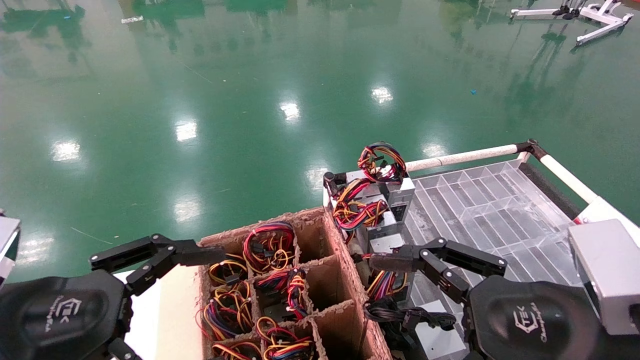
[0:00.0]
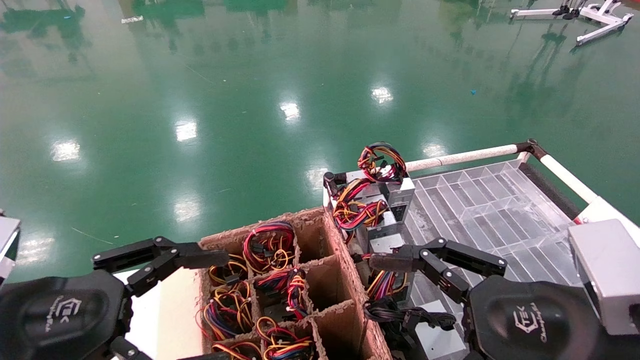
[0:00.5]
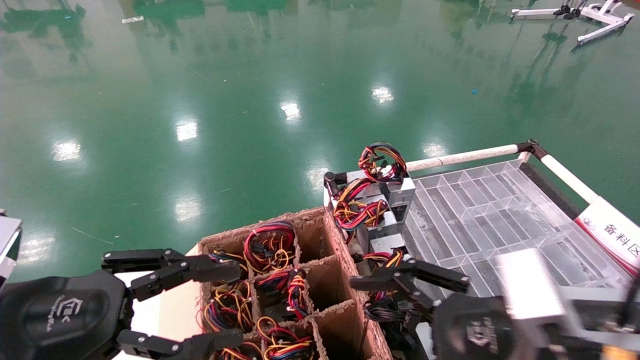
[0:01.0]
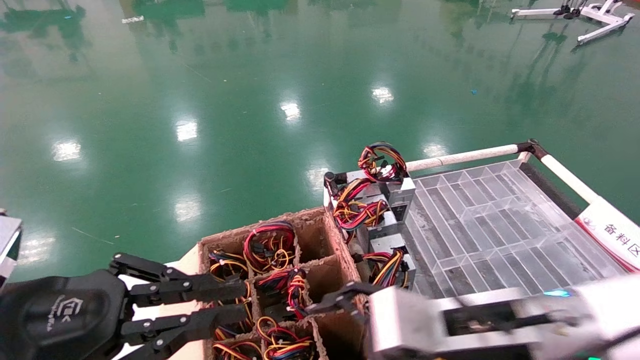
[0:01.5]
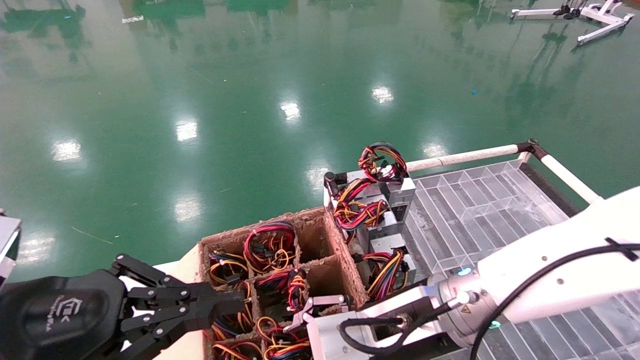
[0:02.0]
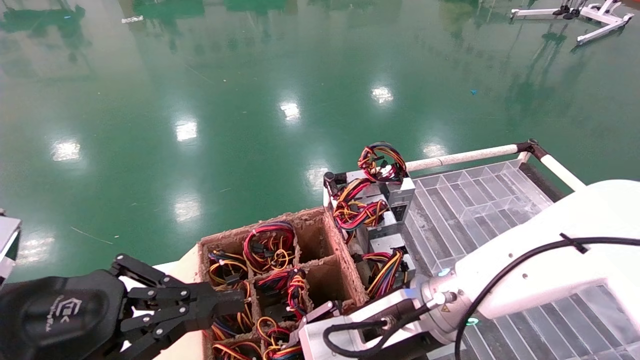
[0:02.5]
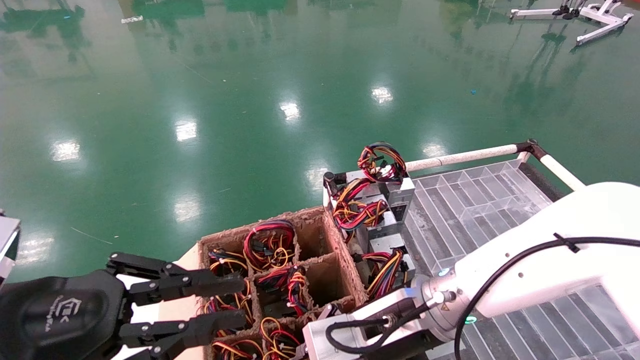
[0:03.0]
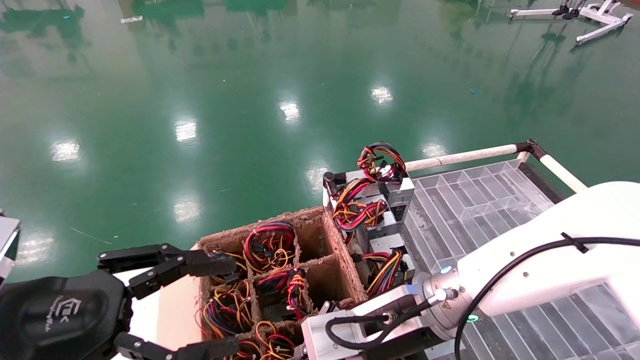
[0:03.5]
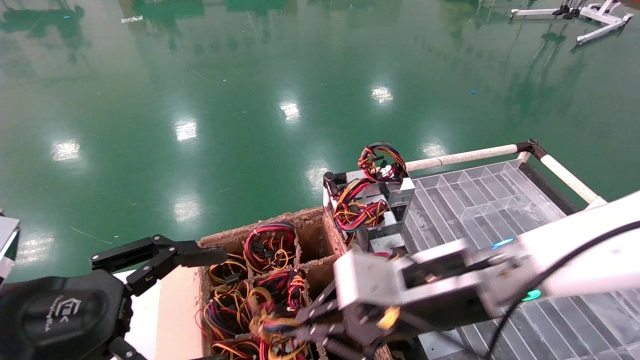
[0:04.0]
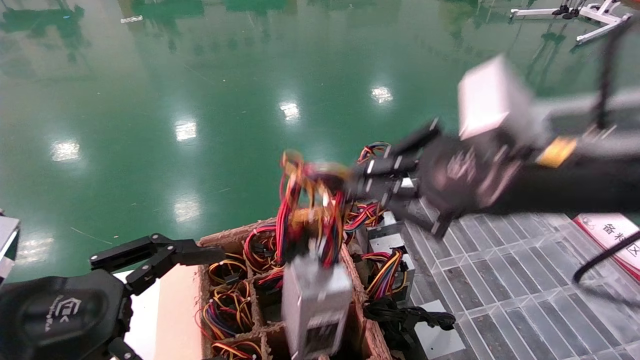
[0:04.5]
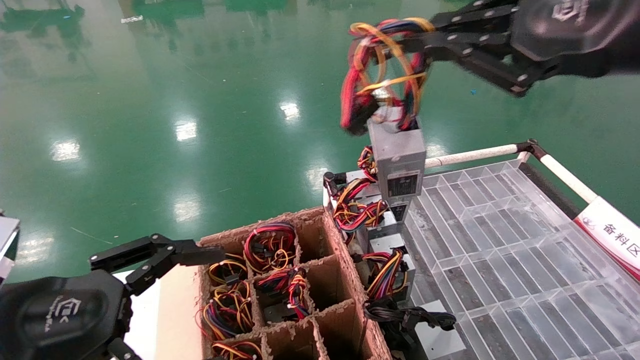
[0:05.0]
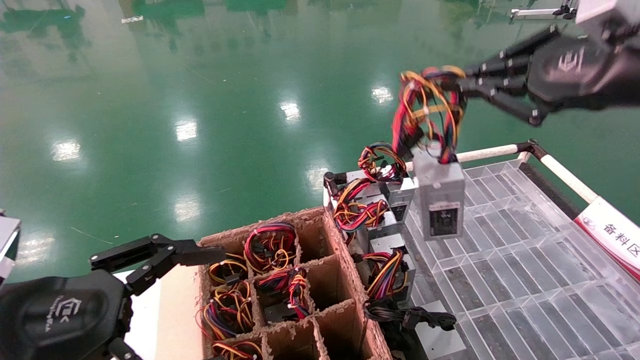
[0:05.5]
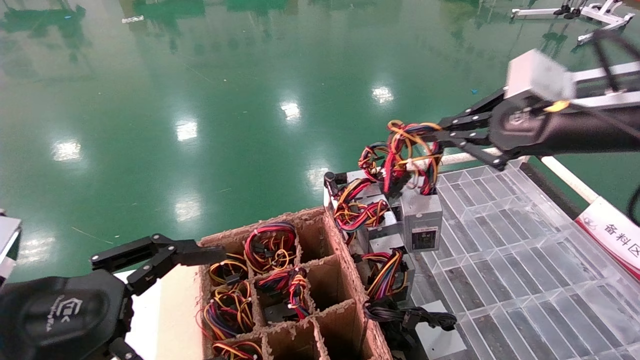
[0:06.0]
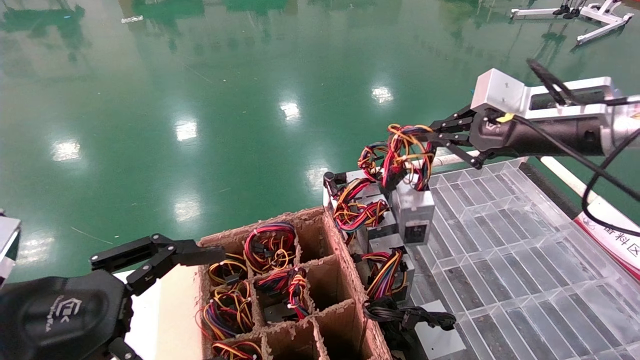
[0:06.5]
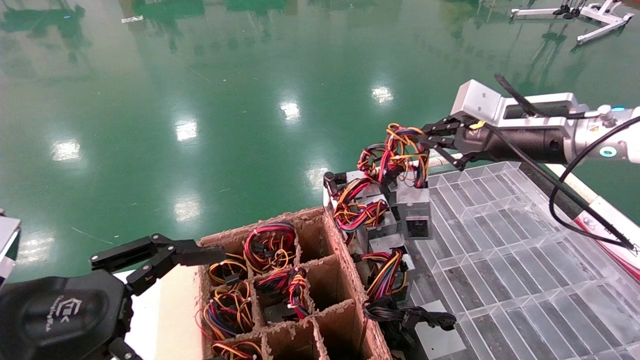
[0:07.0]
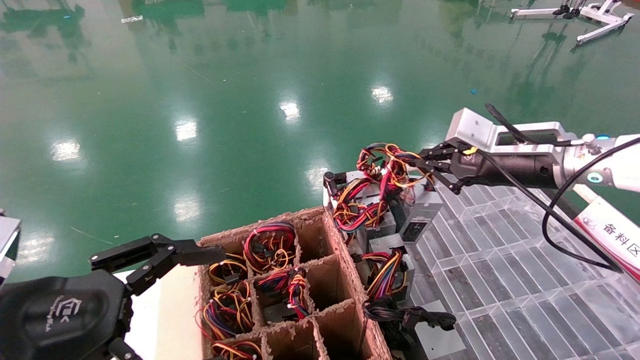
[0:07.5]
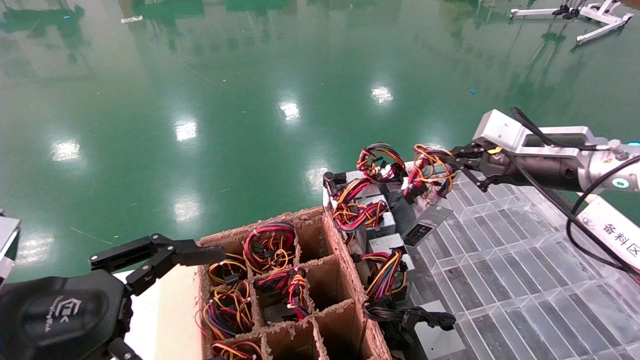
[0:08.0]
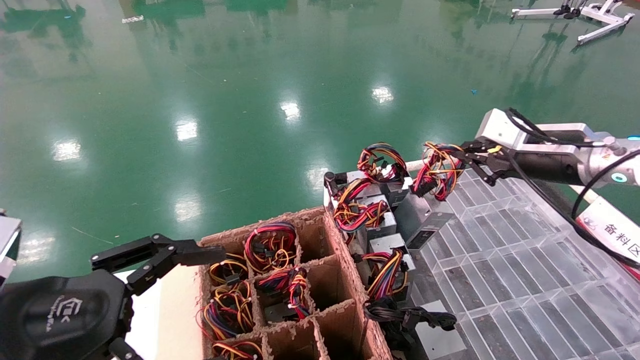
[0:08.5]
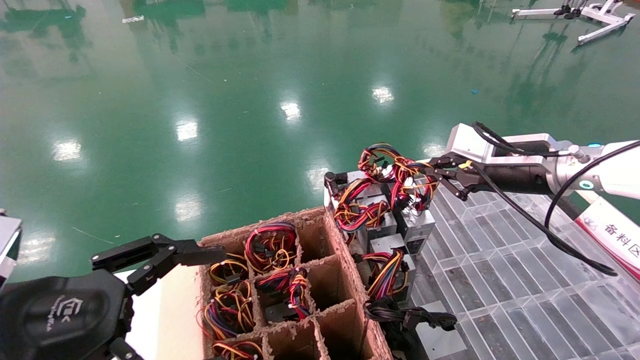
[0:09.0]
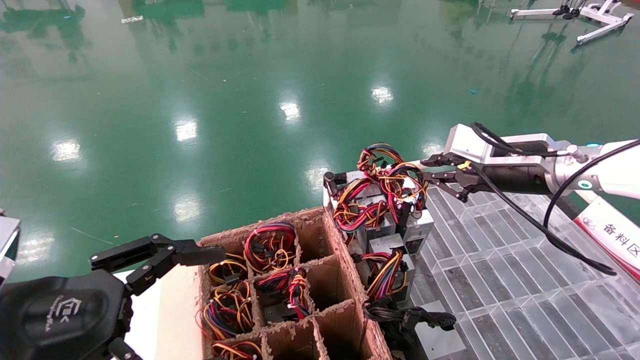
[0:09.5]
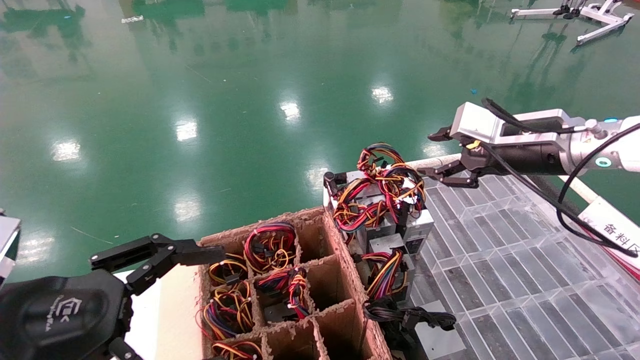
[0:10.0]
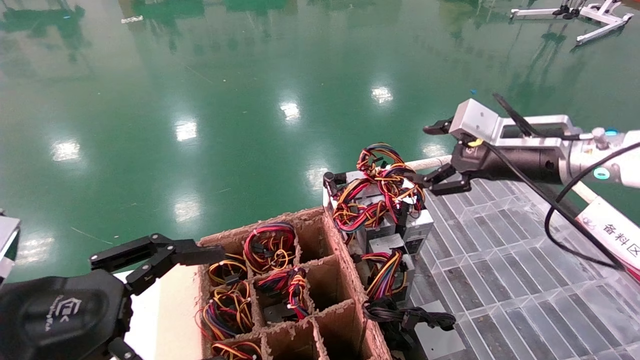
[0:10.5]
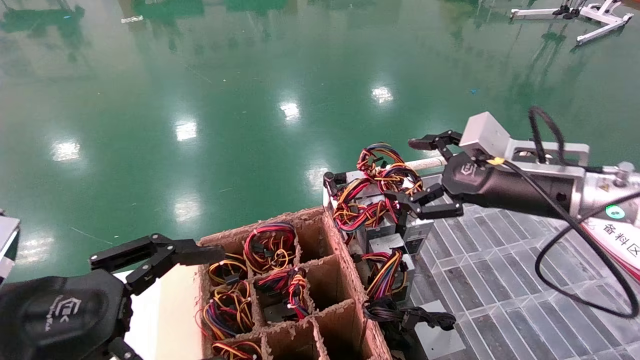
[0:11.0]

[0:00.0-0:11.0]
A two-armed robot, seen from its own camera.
Step, 0:02.0 to 0:03.0: Grab and lift the power supply from the large box.
Step, 0:03.5 to 0:09.5: Place the power supply on the operating table.
0:00.0 to 0:02.0: The left gripper closes its fingers, while the right gripper heads to the left and forward, covering some 15 cm.
0:02.0 to 0:03.5: The right gripper closes, while the left gripper opens up.
0:03.5 to 0:05.5: The left gripper opens, while the right gripper travels upward and to the right by approximately 35 cm.
0:05.5 to 0:07.5: The right gripper heads forward and downward, covering some 15 cm.
0:07.5 to 0:09.0: The grippers move only a little.
0:09.0 to 0:11.0: The right gripper ends up approximately 5 cm from where it was, and opens.

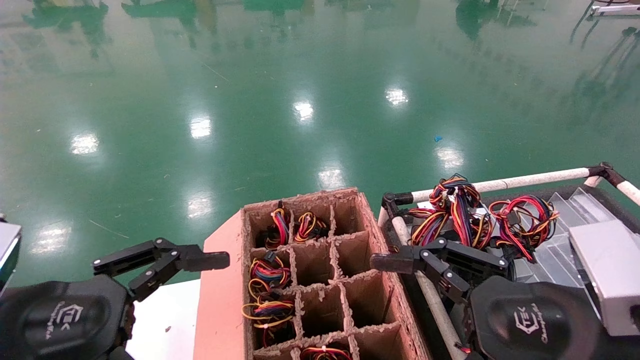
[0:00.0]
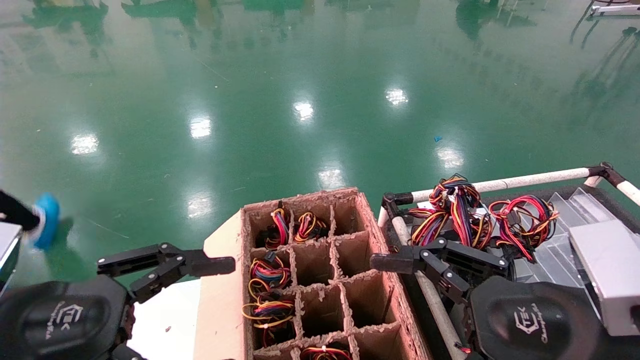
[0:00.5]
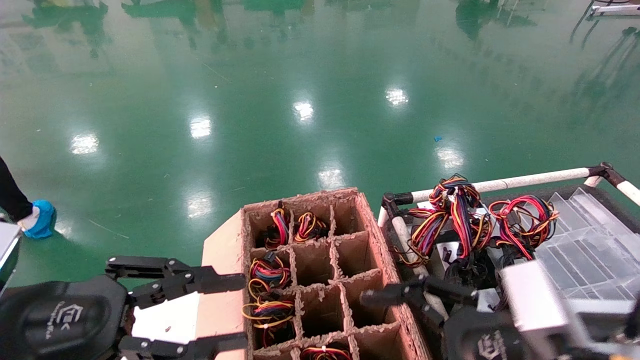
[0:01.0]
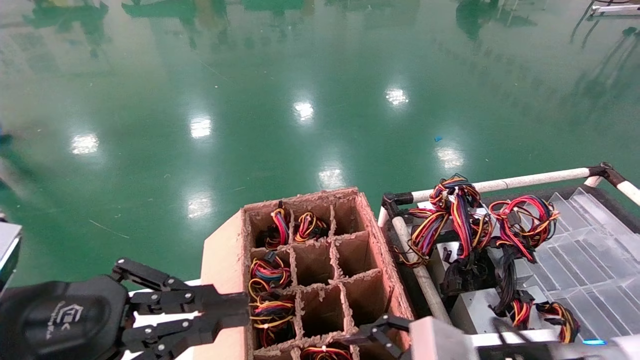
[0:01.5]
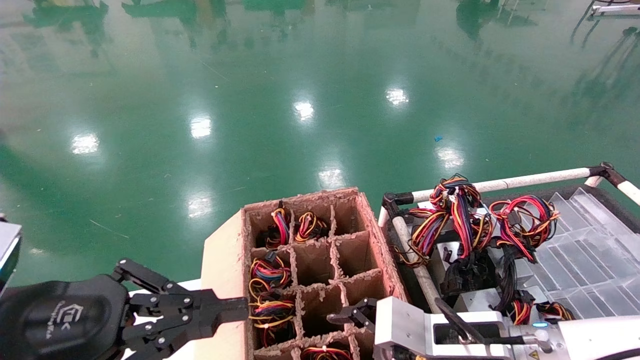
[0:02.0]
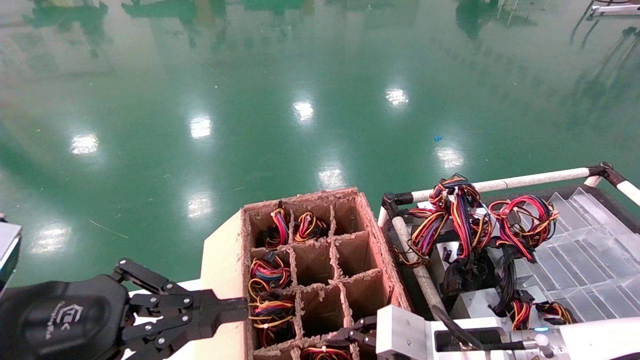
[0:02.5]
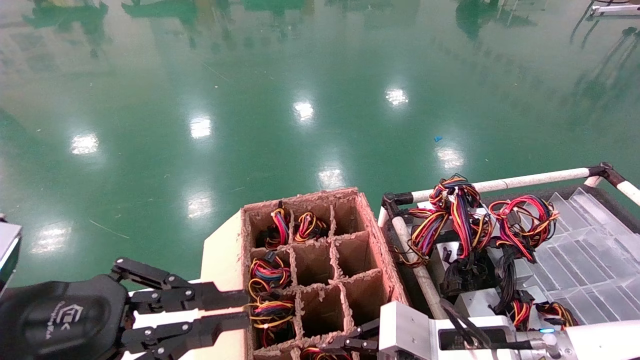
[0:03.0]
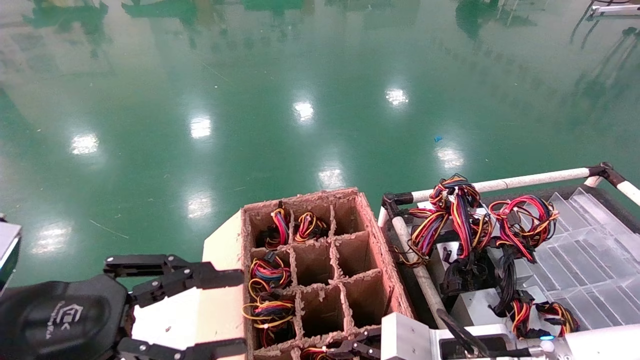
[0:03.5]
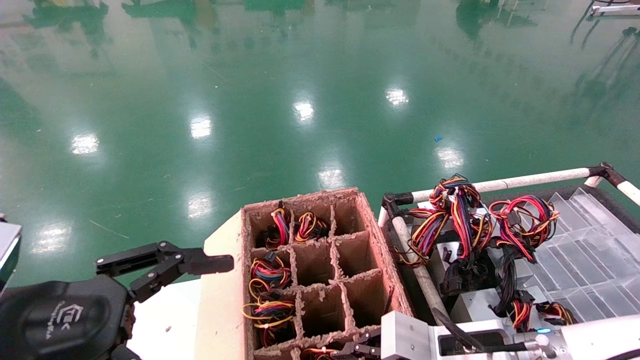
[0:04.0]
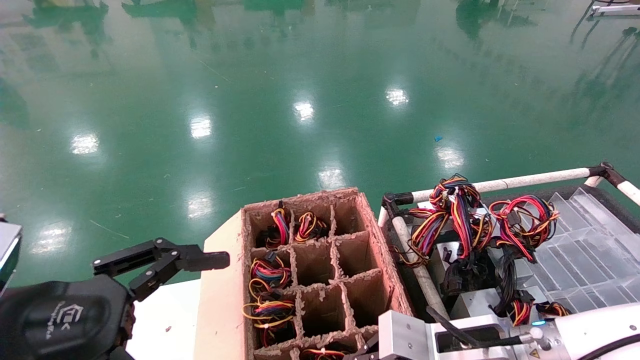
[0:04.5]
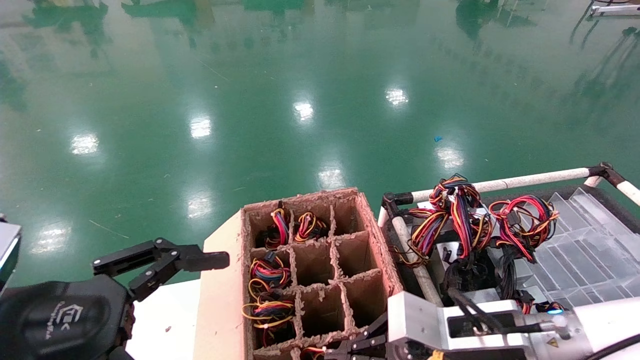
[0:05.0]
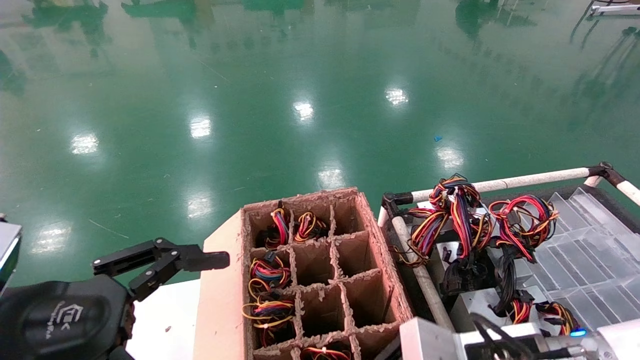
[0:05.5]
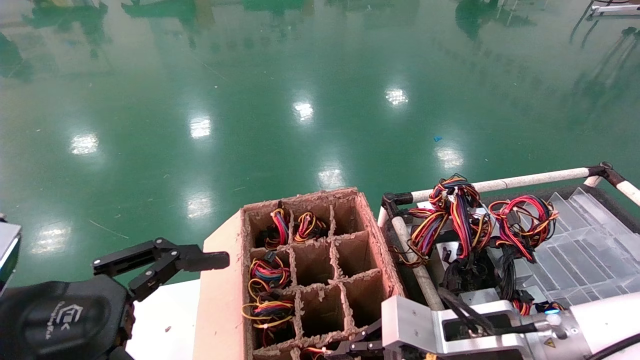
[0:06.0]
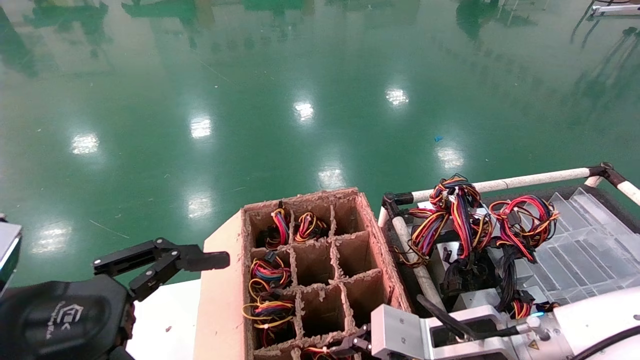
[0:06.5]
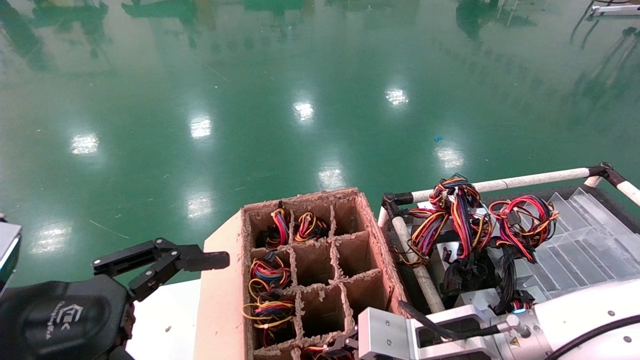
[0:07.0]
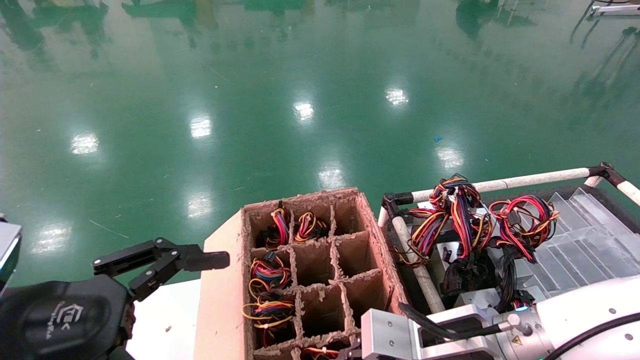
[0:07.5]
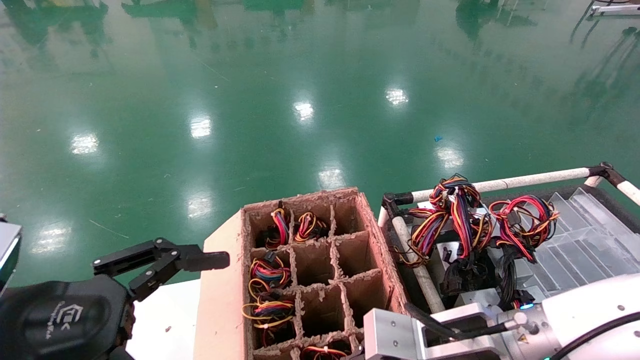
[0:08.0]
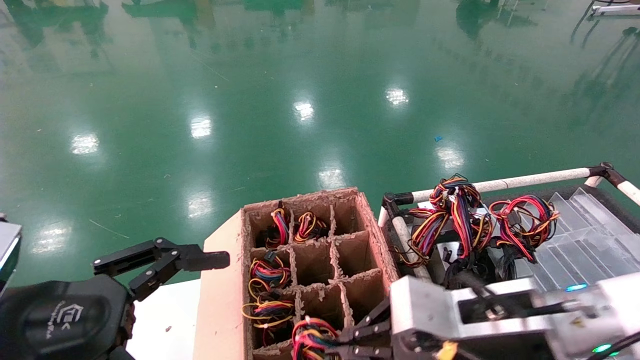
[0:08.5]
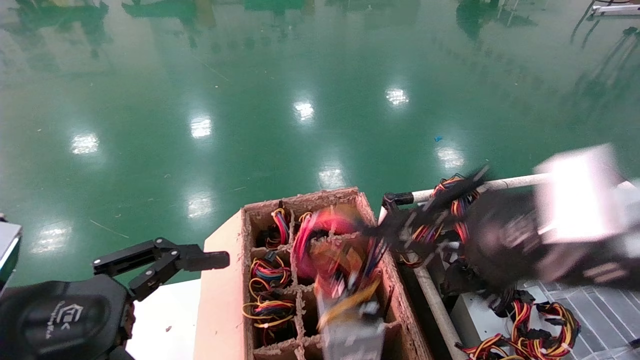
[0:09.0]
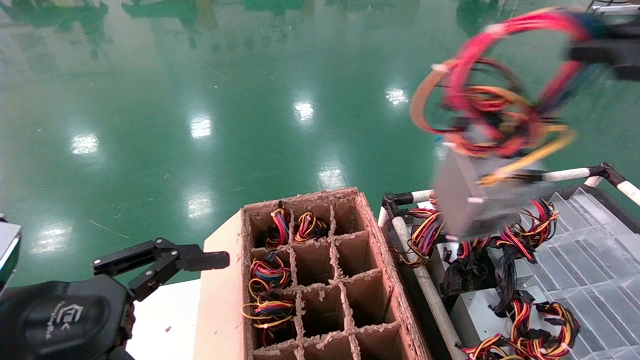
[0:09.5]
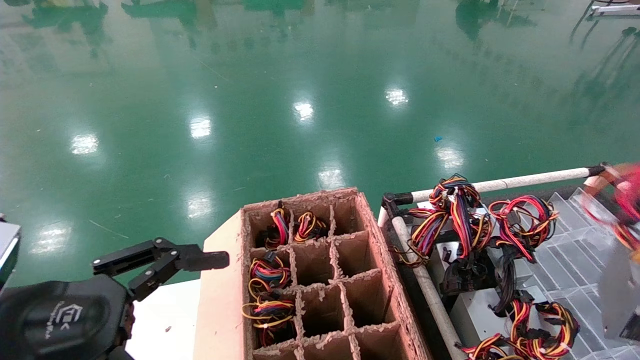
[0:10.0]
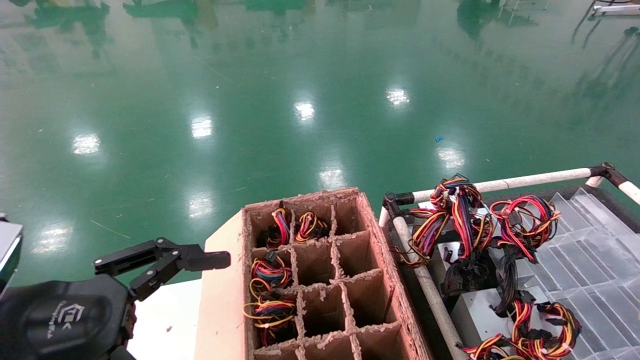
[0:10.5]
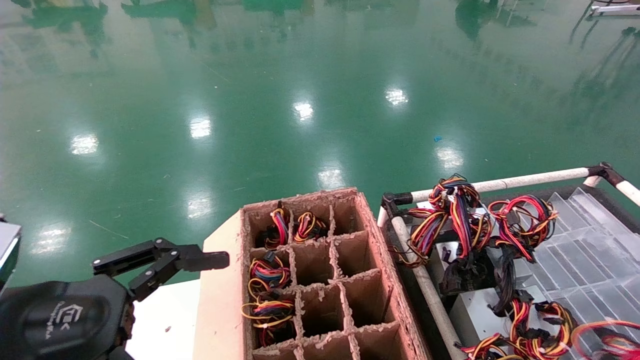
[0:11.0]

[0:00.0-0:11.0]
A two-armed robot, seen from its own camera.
Step, 0:01.0 to 0:07.5: Grab and lift the power supply from the large box.
0:00.0 to 0:02.0: The right gripper is displaced forward, downward and to the left by about 15 cm; the left gripper closes.
0:02.0 to 0:03.5: The right gripper closes, while the left gripper opens up.
0:03.5 to 0:05.5: The left gripper opens up; the right gripper closes.
0:05.5 to 0:07.5: The grippers move only a little.
0:07.5 to 0:09.0: The right gripper is displaced upward, backward and to the right by roughly 20 cm.
0:09.0 to 0:11.0: The right gripper shifts some 30 cm to the right and backward.
